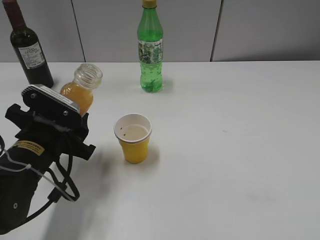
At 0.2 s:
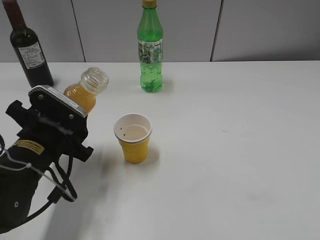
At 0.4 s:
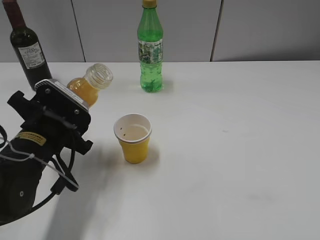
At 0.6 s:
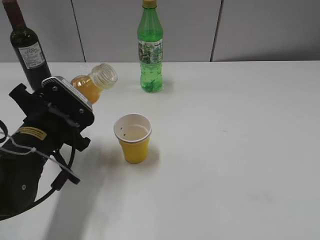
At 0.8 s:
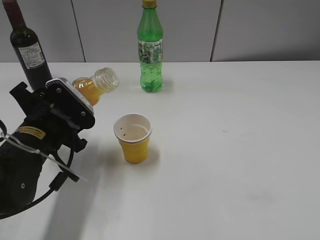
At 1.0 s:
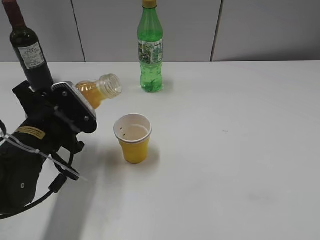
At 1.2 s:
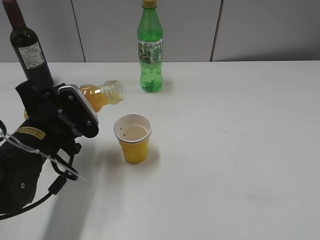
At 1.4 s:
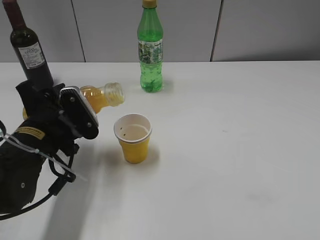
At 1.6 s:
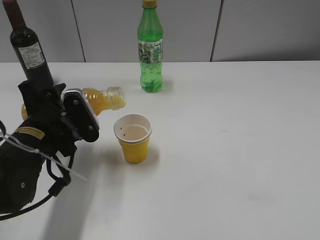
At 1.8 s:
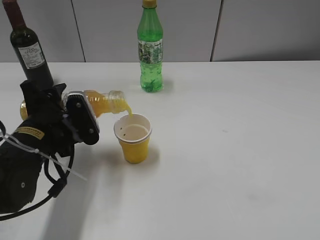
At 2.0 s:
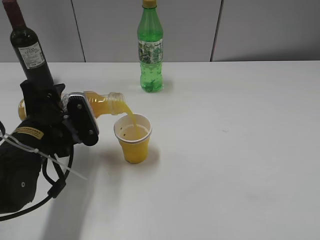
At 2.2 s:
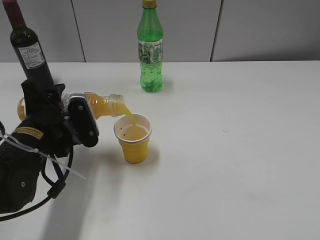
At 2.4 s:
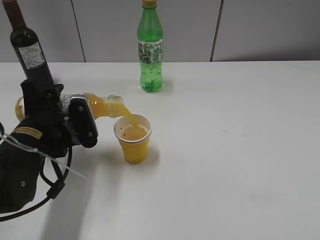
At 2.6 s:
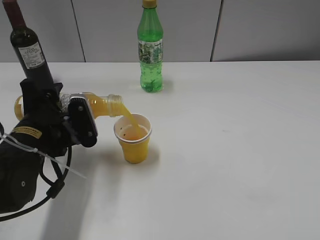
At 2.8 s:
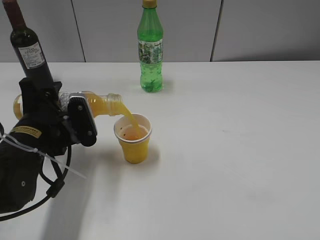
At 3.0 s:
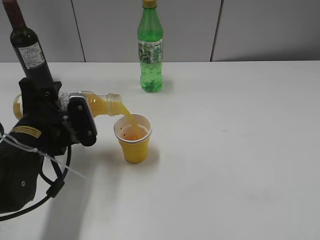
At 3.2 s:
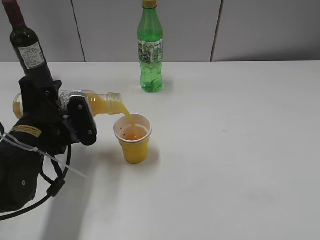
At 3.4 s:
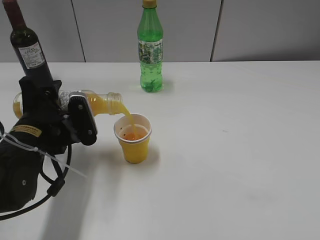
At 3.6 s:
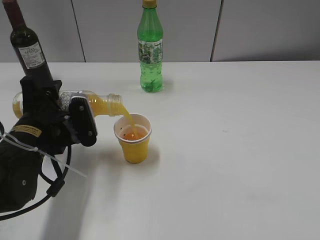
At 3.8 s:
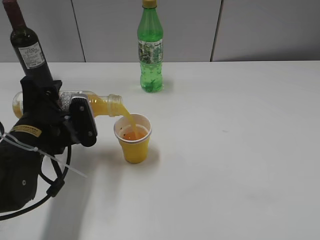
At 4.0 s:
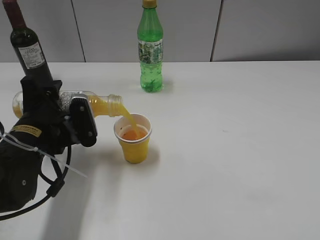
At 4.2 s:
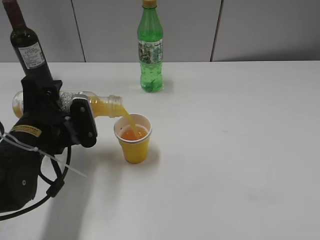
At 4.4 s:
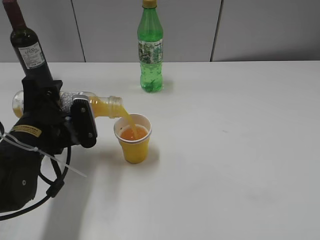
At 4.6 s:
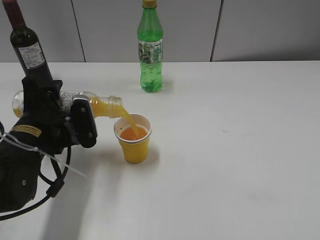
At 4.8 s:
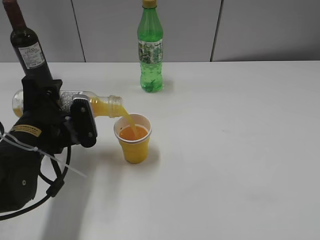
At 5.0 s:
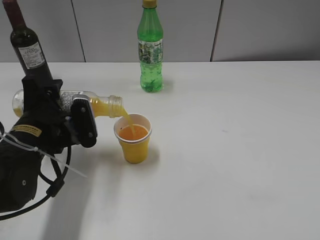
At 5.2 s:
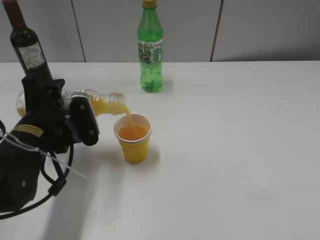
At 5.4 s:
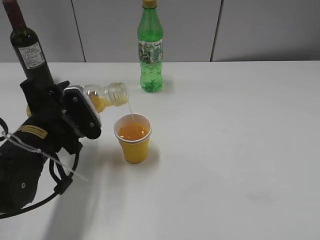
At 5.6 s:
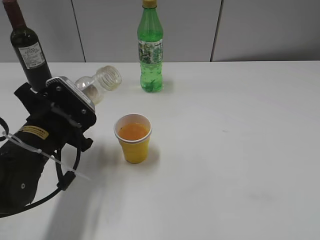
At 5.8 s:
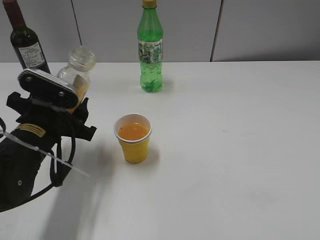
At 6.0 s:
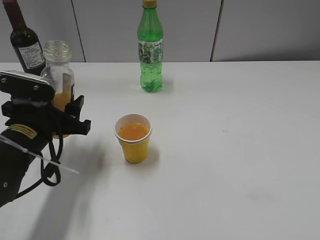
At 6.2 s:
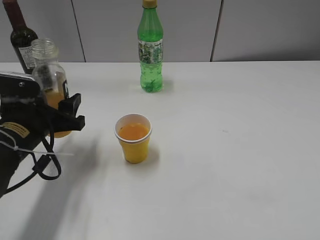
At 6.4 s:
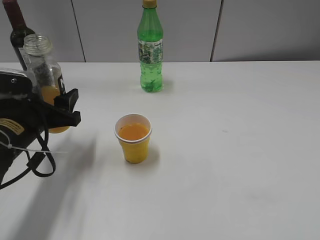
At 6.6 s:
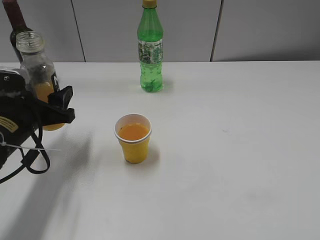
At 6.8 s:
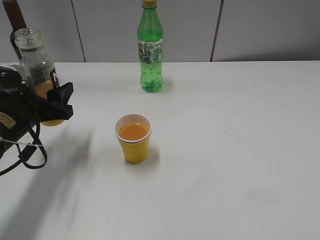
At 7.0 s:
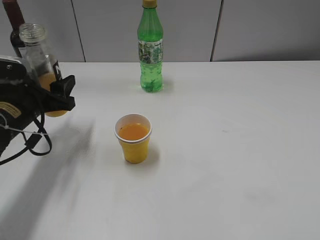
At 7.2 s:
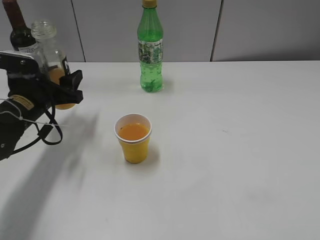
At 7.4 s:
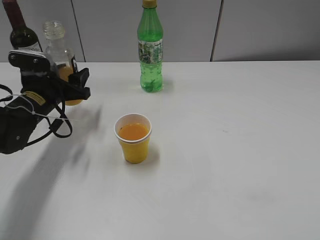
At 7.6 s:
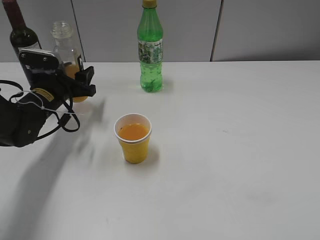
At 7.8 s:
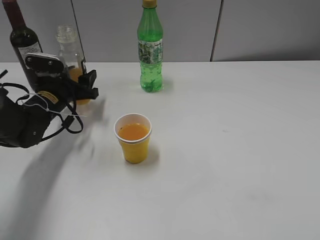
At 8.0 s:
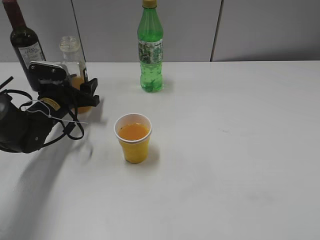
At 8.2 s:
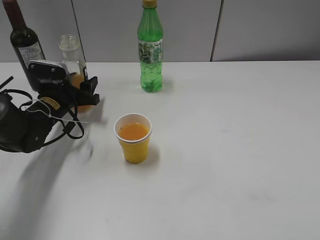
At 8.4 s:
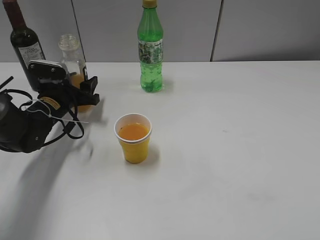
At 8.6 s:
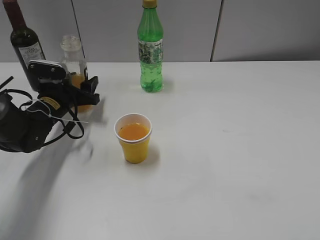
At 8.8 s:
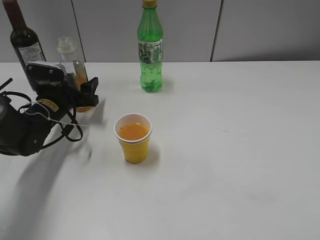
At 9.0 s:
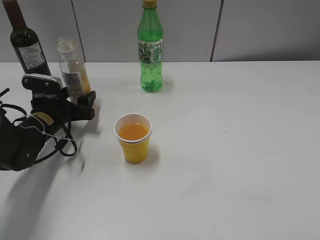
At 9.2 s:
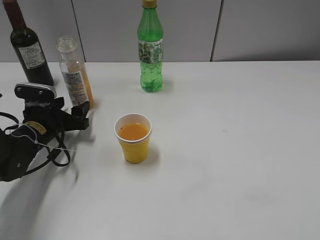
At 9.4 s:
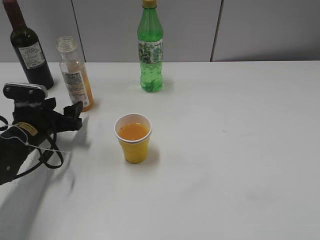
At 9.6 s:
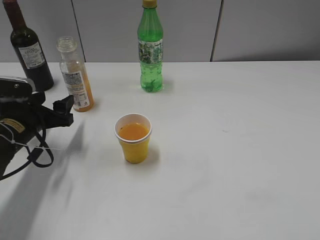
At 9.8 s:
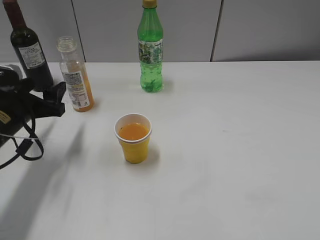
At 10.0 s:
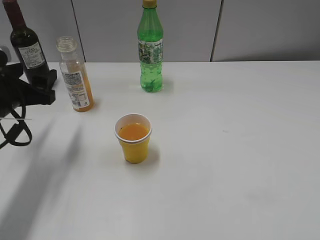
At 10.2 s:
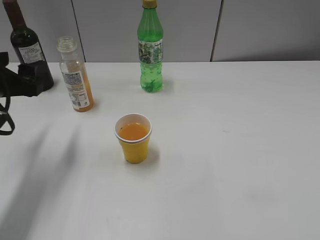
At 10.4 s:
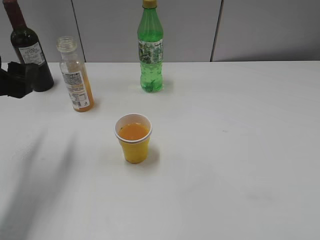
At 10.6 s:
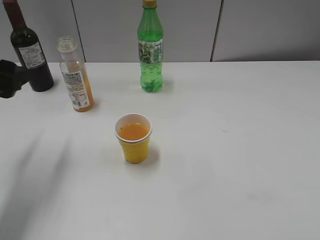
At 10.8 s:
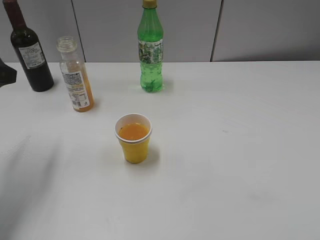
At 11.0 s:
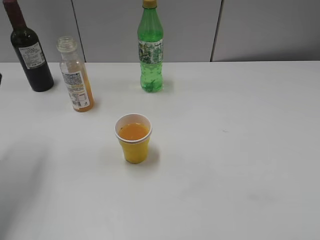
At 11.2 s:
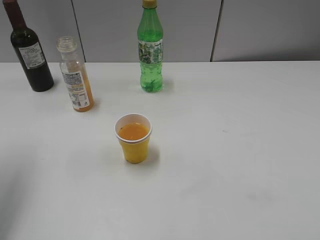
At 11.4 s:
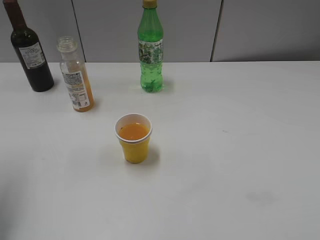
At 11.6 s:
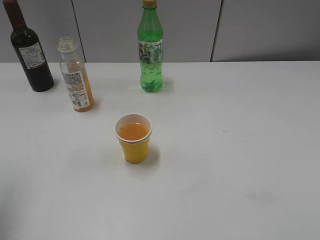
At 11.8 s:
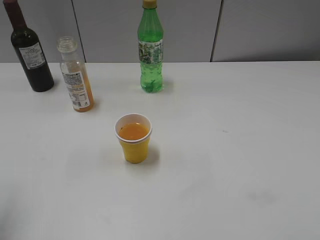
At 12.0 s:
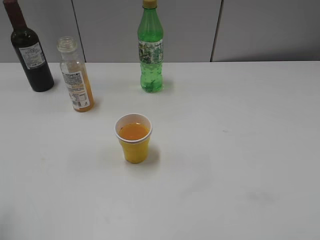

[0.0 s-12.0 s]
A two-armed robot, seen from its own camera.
Step, 0.0 to 5.4 s: Pour the orange juice from bottle to cup with left gripper.
Step, 5.6 to 9.0 s: Place the orange juice bottle on the table with left gripper.
1.6 to 3.0 s: The grippers make only small movements.
3.0 to 4.4 s: Neither gripper changes place.
6.0 to 7.6 s: The left gripper moves forward, approximately 15 cm.
7.6 to 9.0 s: The grippers make only small movements.
9.0 to 10.4 s: The left gripper goes about 20 cm upward and backward.
10.4 to 12.0 s: The left gripper heads backward and upward, covering roughly 15 cm.

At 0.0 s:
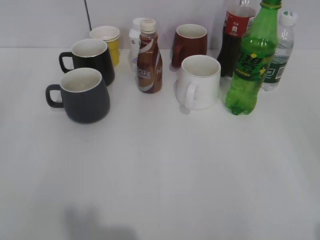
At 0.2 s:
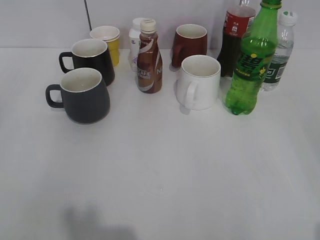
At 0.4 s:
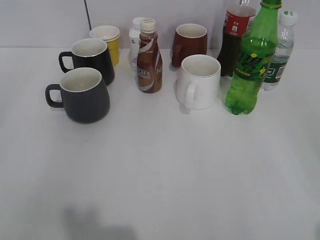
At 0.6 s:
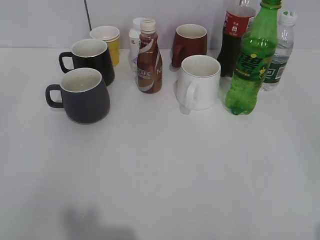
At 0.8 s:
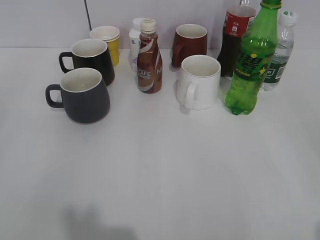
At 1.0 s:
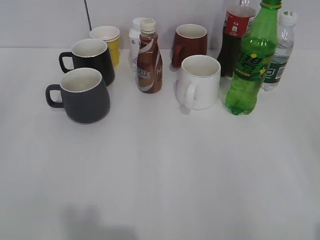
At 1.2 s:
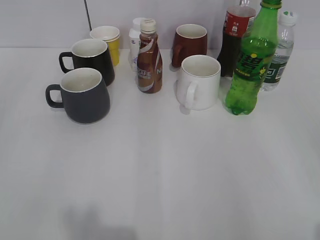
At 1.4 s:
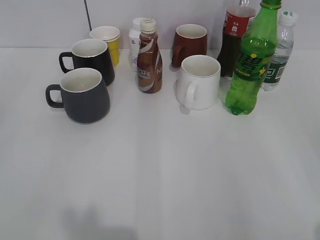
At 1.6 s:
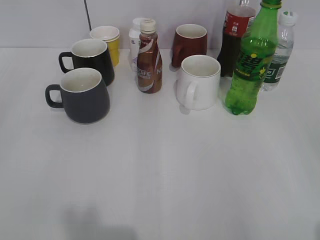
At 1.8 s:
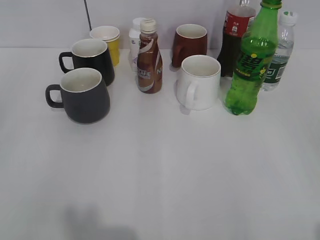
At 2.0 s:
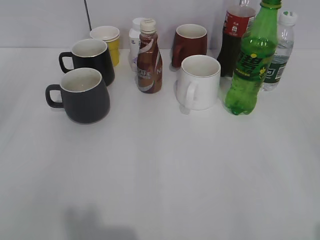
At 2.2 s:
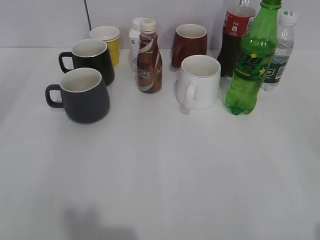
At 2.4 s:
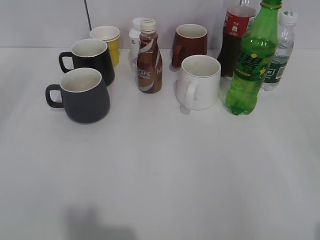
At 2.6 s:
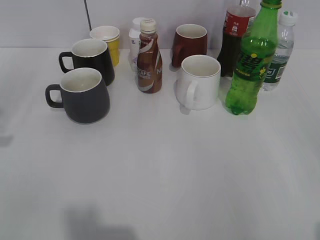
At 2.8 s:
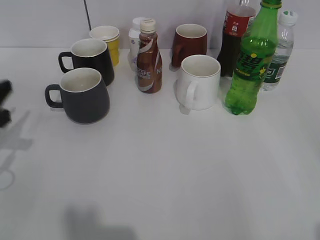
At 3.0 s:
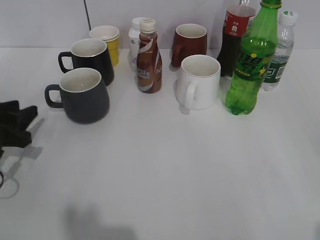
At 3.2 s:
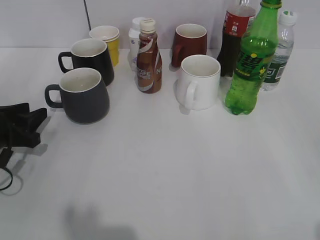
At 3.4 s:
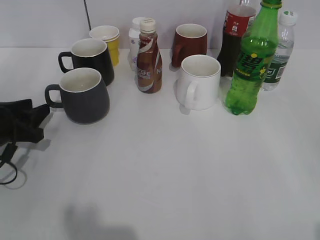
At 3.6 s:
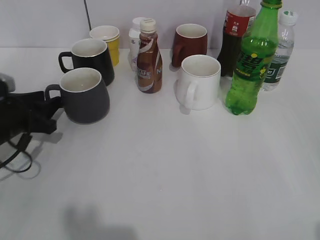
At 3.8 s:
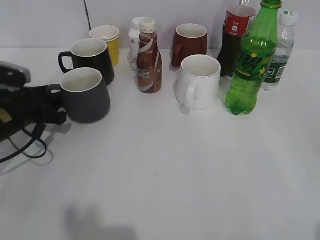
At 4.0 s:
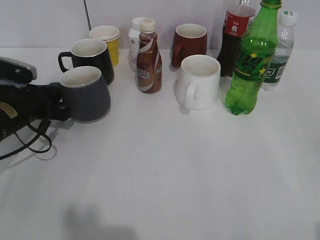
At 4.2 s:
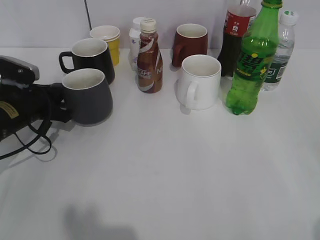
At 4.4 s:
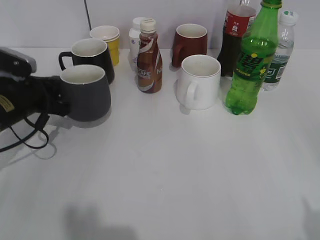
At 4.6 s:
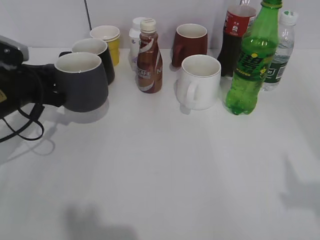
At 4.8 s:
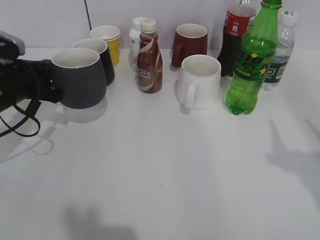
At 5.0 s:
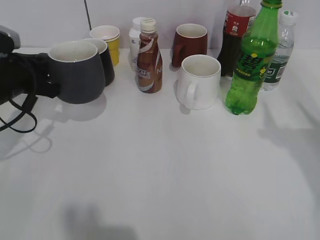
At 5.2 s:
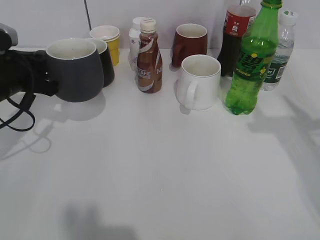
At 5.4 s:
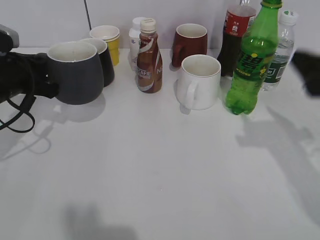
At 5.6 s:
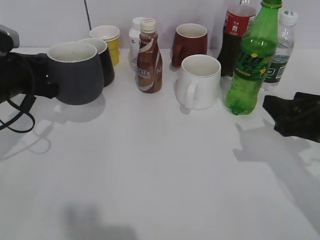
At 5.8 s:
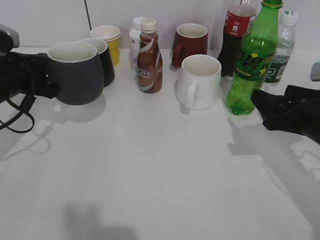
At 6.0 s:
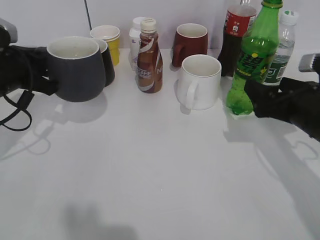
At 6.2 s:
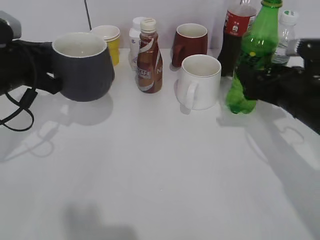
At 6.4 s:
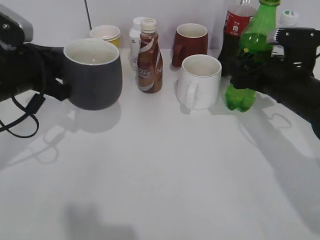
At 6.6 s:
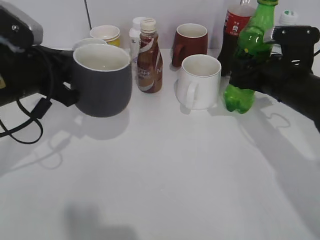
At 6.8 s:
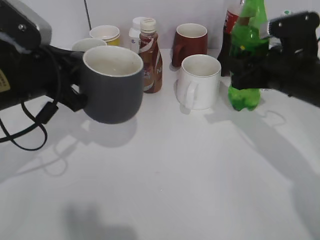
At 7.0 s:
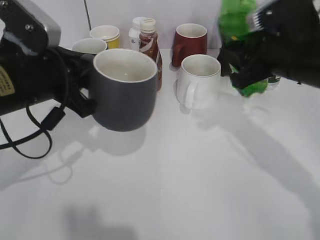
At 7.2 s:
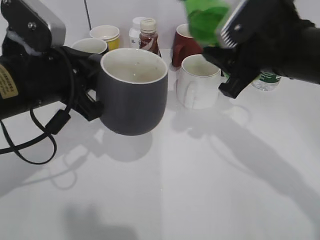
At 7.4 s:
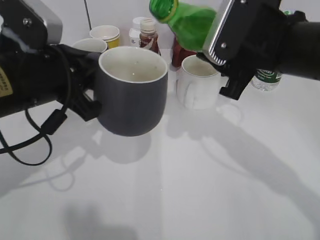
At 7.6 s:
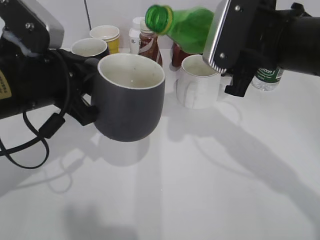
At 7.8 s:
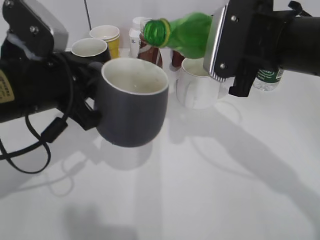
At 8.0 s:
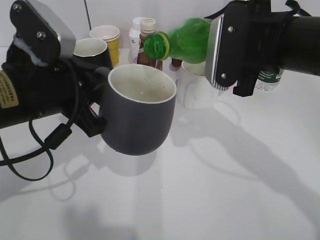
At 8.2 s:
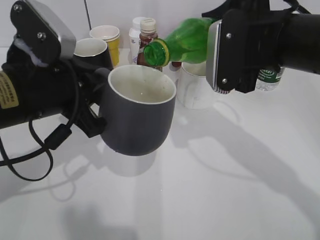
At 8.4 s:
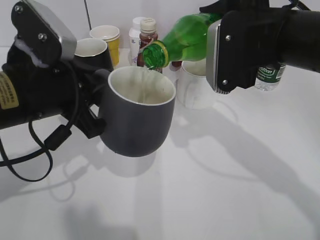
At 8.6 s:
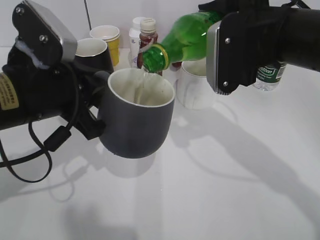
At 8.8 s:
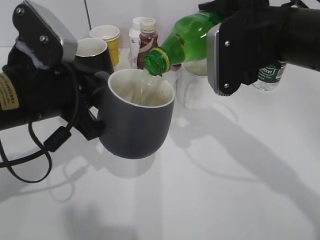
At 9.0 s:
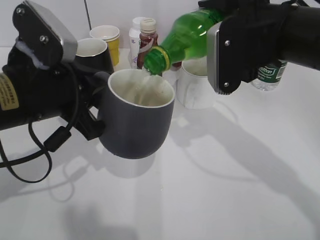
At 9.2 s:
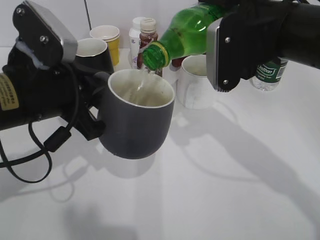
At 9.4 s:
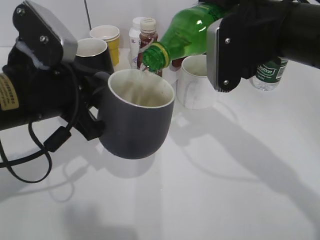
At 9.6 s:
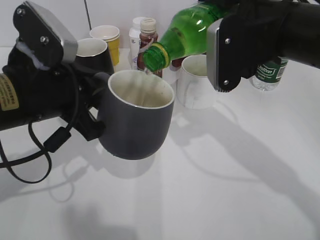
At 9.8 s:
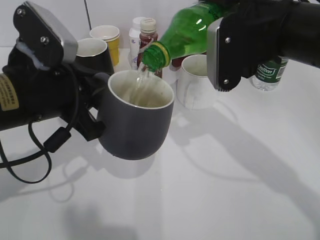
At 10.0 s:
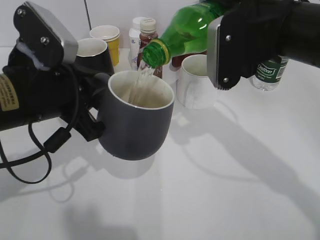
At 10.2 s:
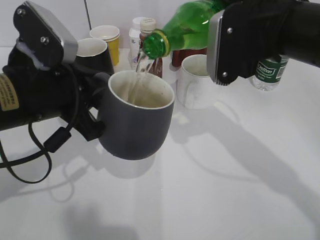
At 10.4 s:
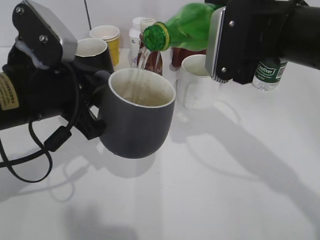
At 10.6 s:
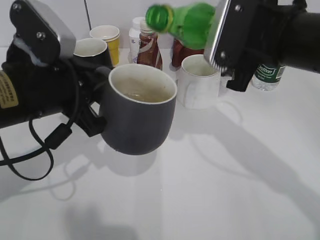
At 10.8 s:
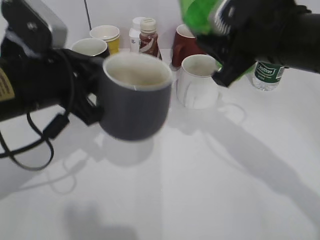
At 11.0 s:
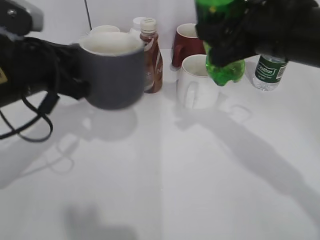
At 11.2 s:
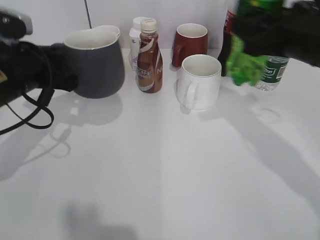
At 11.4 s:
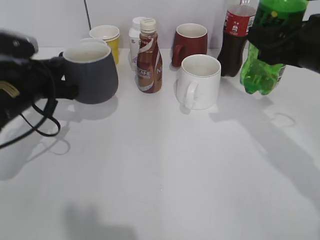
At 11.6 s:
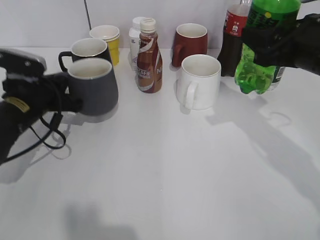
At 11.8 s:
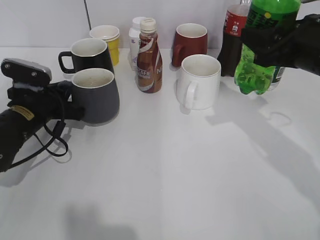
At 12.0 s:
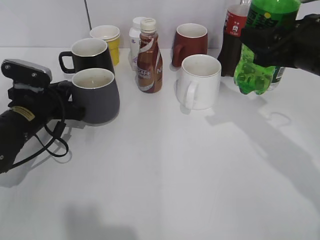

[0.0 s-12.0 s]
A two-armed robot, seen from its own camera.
Step, 1.8 to 4.0 s: Grasp the grey cup with left gripper.
Step, 4.2 to 6.4 s: Grasp the bottle with sprite with right gripper.
Step, 6.6 to 10.6 s: Pour the sprite from bottle to cup with right gripper.
1.6 to 3.0 s: The left gripper shifts approximately 30 cm forward and downward, and opens.
3.0 to 4.4 s: The left gripper moves forward, roughly 10 cm, and closes.
4.4 to 6.0 s: The left gripper travels upward by approximately 5 cm. Meanwhile the right gripper moves forward and downward, approximately 25 cm, and closes, then reopens.
6.0 to 7.6 s: The left gripper shifts approximately 10 cm to the right and backward; the right gripper goes roughly 15 cm upward and to the left, and closes.
9.0 to 10.4 s: The grippers stay close to where they were, moving slightly.
10.4 to 12.0 s: The right gripper goes about 5 cm to the right. The left gripper heads downward, forward and to the left, covering some 20 cm.
